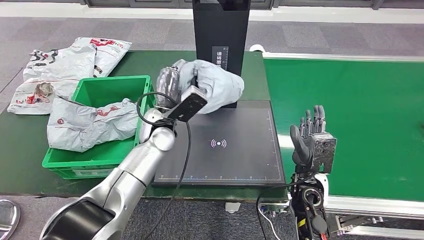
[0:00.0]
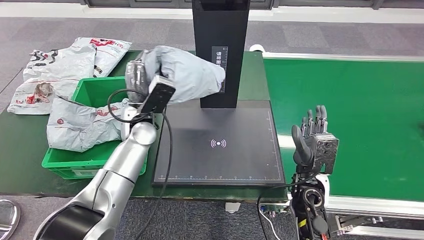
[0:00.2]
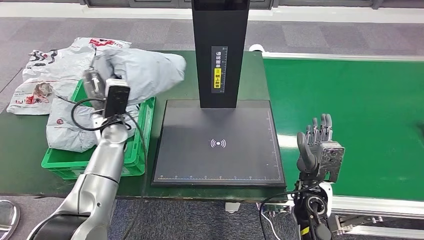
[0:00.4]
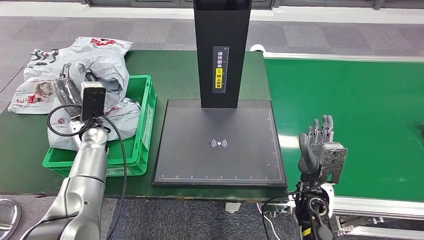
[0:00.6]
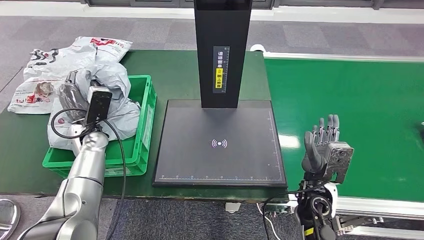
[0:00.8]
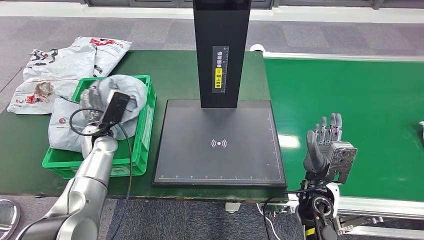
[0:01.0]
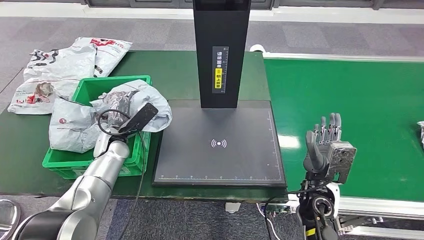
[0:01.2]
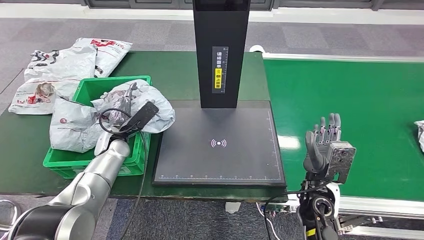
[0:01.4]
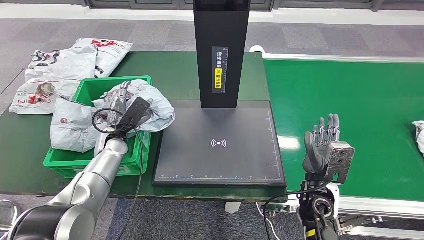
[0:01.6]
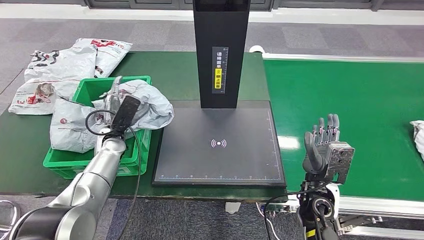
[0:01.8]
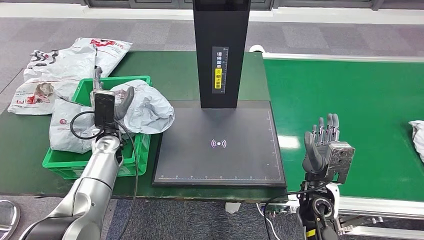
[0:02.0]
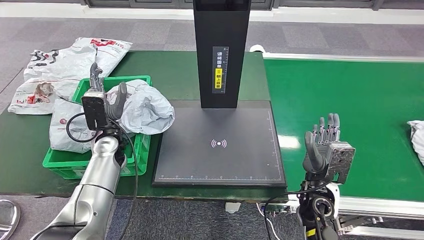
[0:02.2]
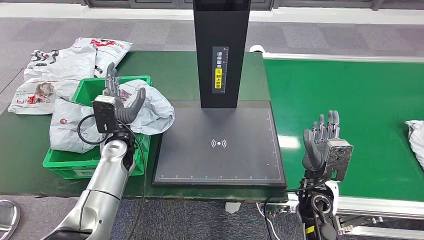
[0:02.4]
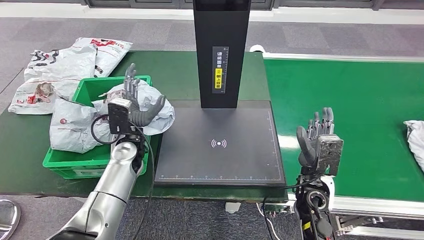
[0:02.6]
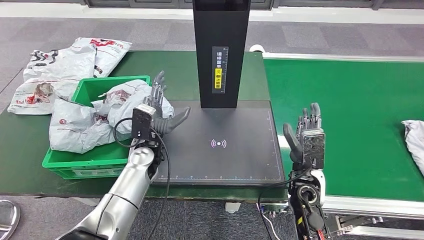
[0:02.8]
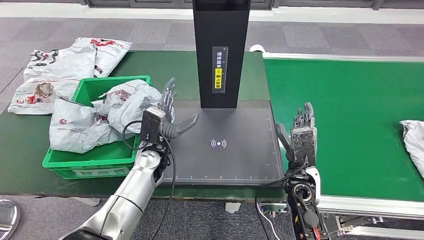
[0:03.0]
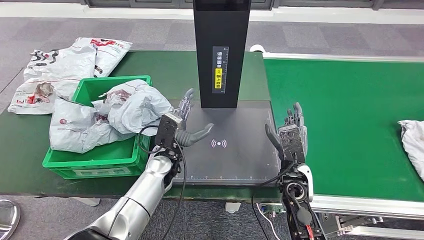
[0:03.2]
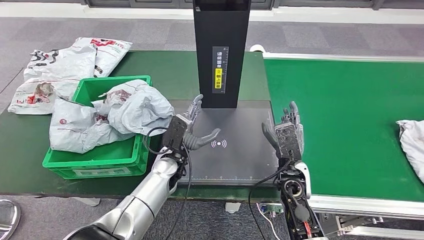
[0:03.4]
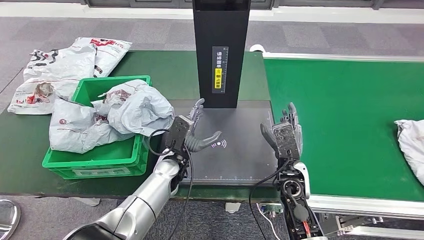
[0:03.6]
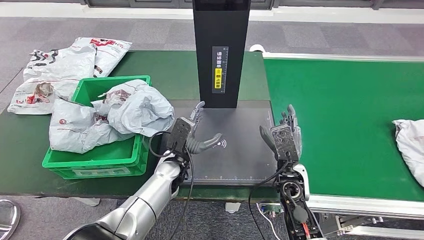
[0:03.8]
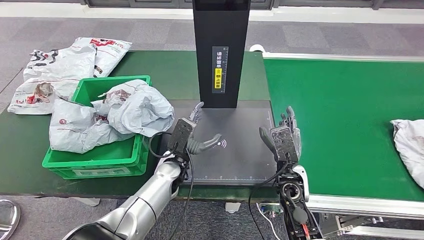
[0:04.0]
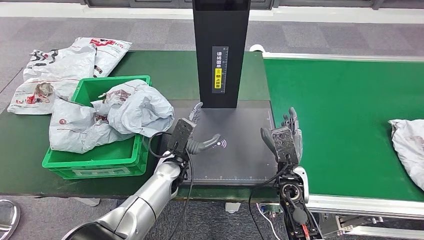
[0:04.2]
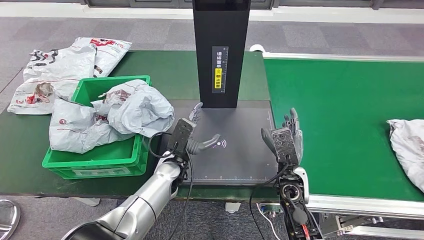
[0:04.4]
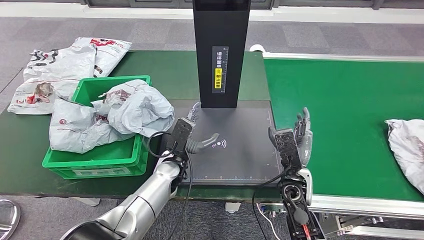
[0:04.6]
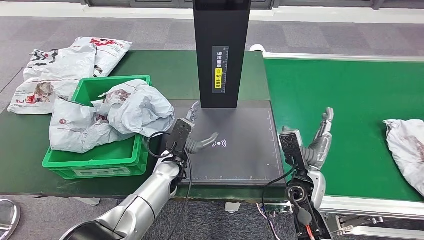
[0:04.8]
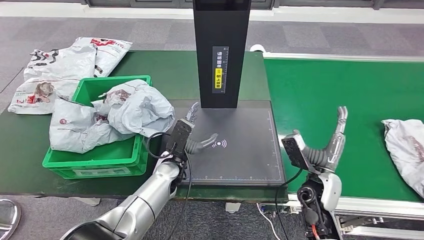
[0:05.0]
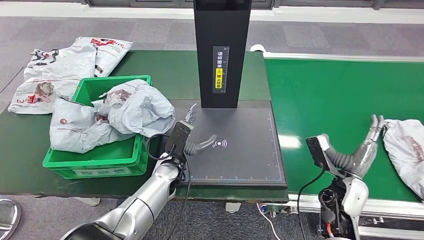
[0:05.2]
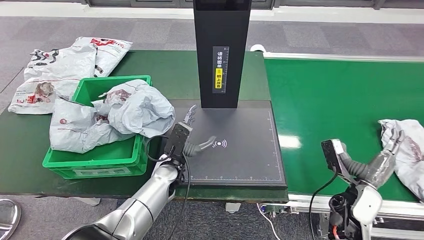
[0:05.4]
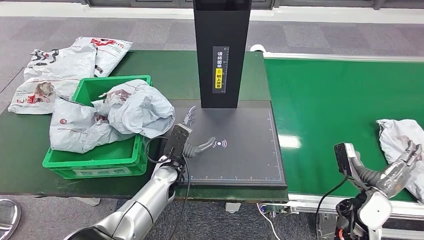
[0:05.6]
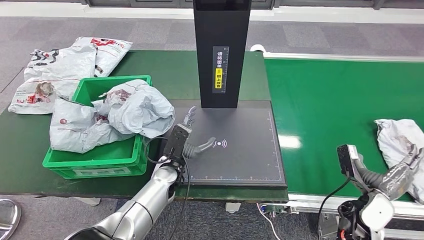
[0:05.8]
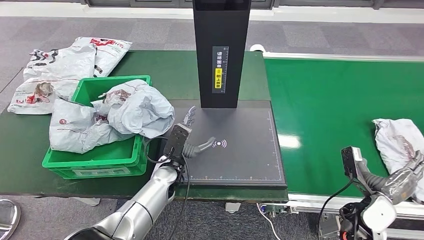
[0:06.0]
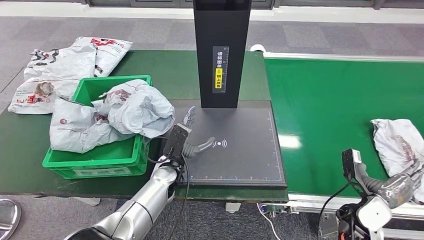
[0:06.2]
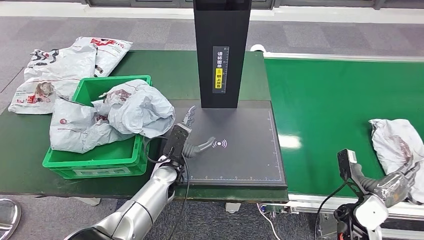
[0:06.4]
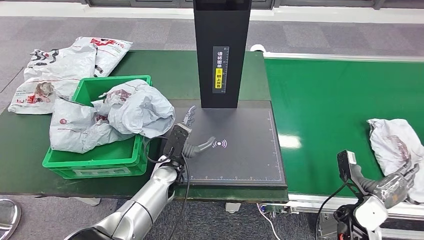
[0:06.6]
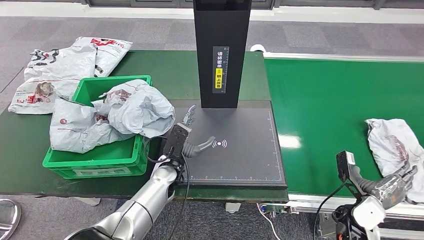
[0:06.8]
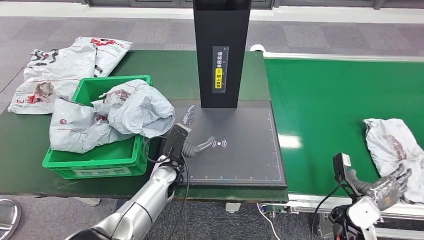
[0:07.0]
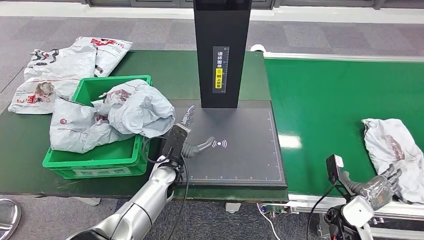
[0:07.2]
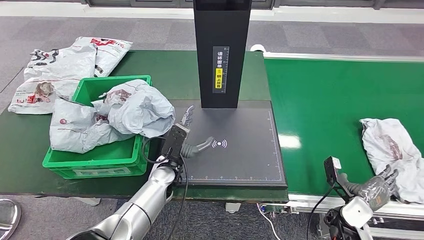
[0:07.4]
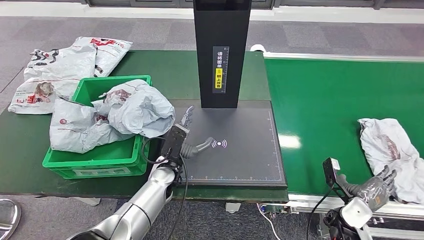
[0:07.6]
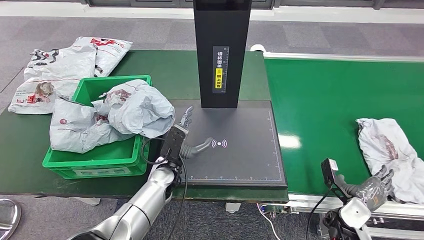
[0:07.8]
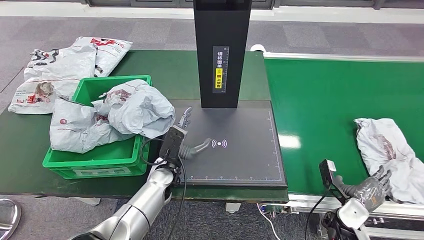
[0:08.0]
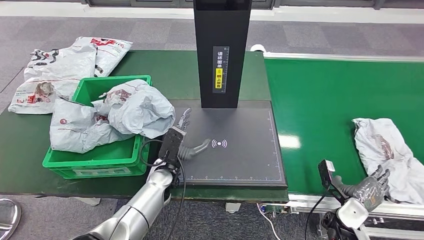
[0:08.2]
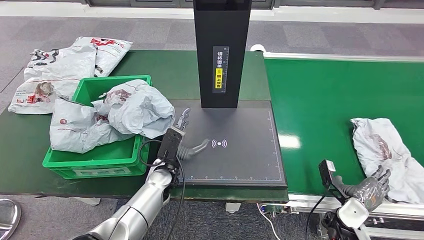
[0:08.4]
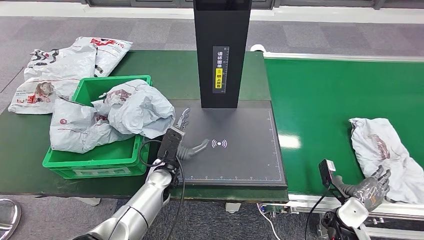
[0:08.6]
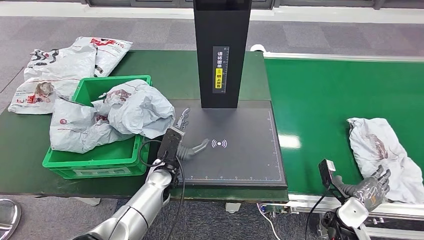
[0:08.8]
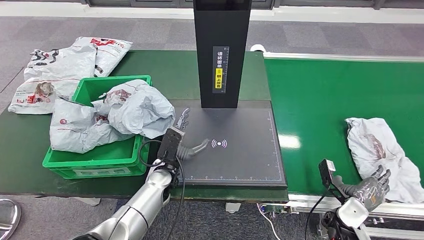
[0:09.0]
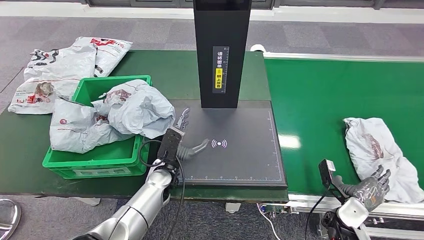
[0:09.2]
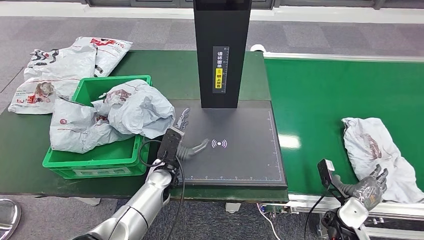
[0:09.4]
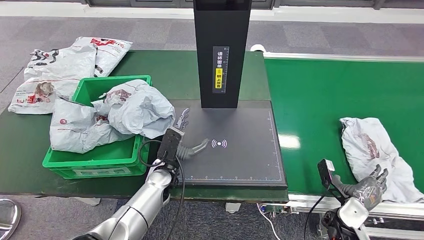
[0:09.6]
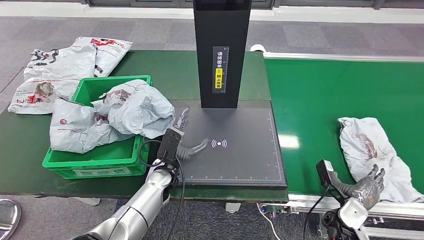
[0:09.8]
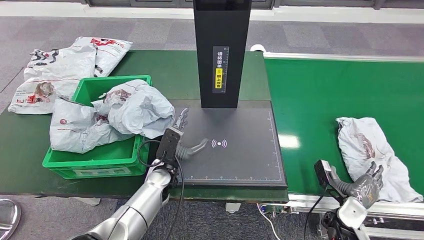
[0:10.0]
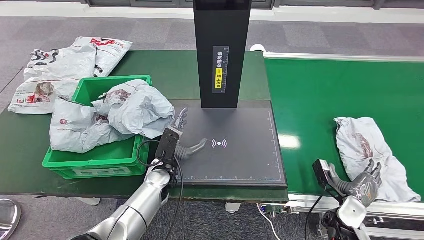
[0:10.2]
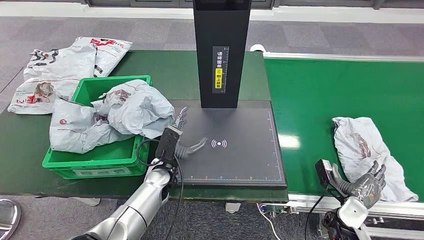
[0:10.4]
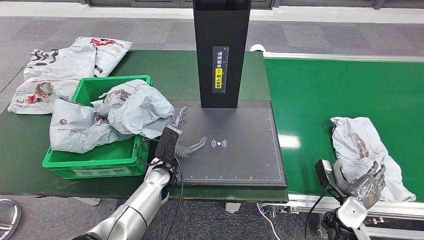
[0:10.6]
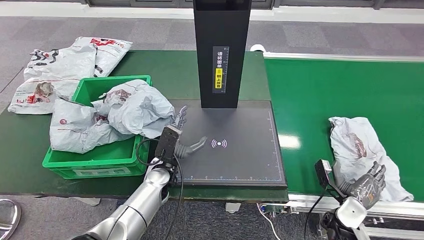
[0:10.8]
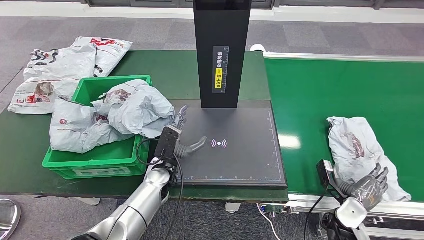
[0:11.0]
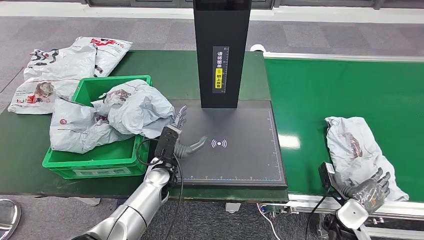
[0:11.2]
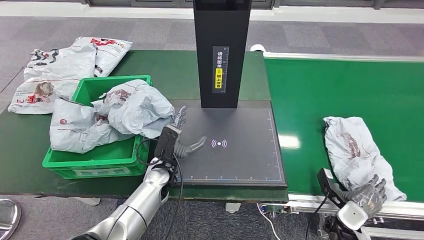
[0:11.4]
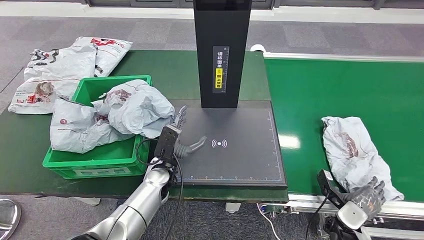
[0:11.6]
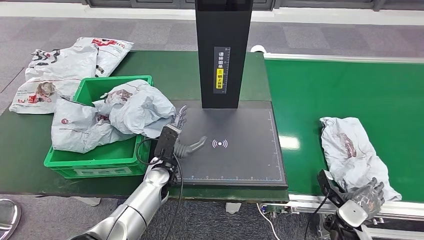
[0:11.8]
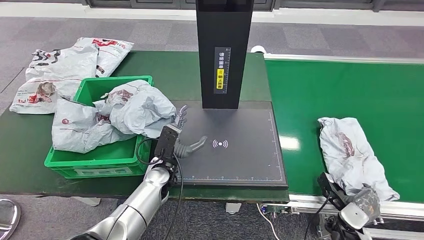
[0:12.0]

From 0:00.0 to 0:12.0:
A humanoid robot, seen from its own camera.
Step, from 0:00.2 to 0:03.0: Place the parcel into the delivery box.
From 0:03.0 to 0:04.4: The left hand ends up some 5 cm from where it was.
From 0:04.4 to 0:06.0: The right hand shifts some 20 cm to the right.
From 0:07.6 to 0:09.0: The two hands keep their place.
From 0:09.0 to 0:10.4: The hands stay close to where they were, moving slightly.

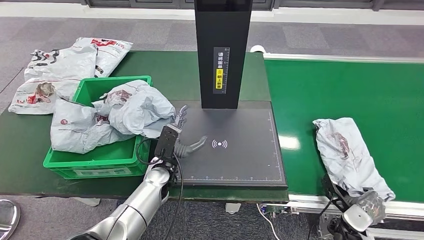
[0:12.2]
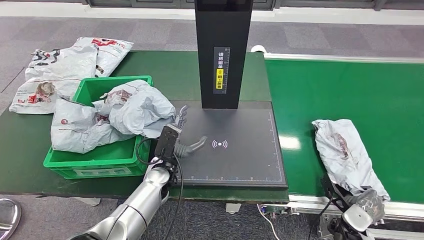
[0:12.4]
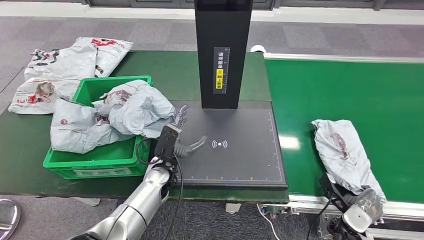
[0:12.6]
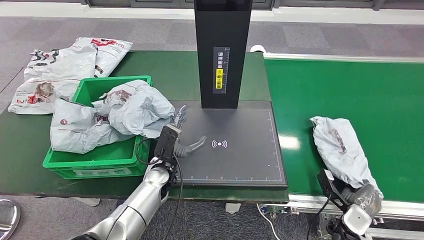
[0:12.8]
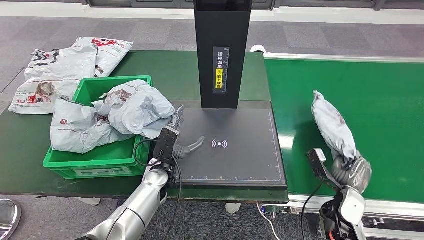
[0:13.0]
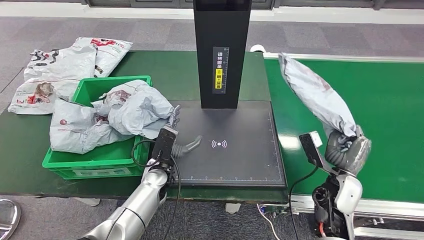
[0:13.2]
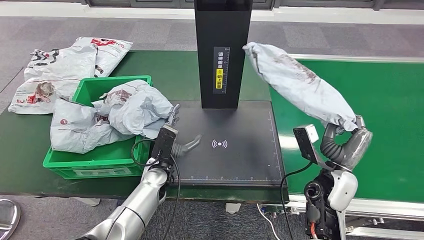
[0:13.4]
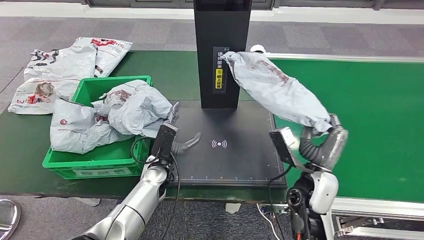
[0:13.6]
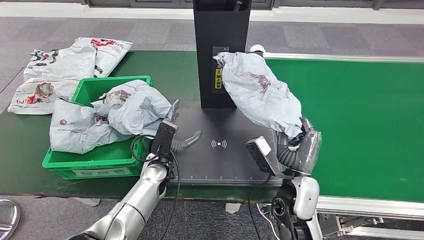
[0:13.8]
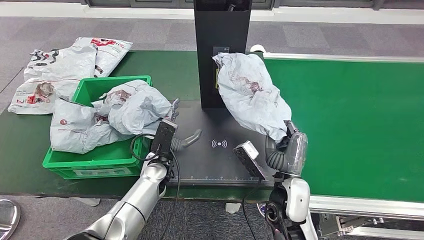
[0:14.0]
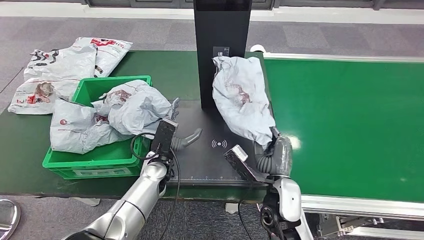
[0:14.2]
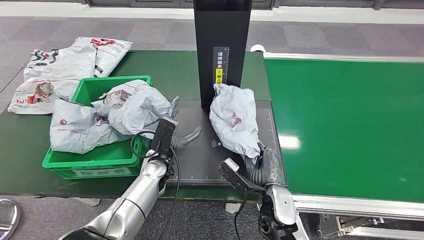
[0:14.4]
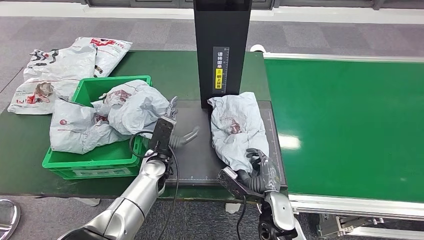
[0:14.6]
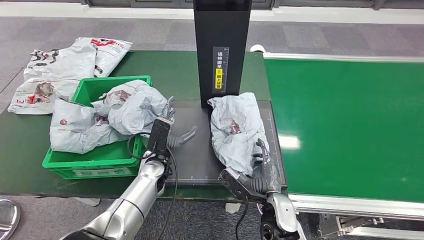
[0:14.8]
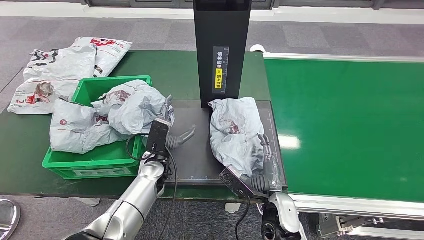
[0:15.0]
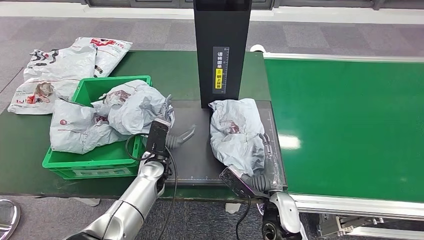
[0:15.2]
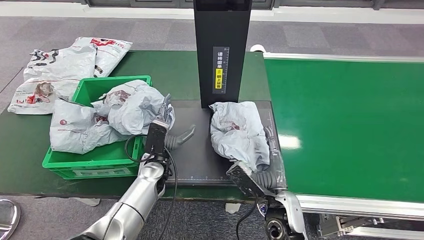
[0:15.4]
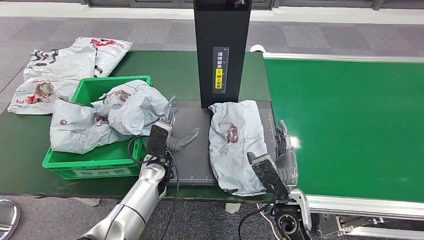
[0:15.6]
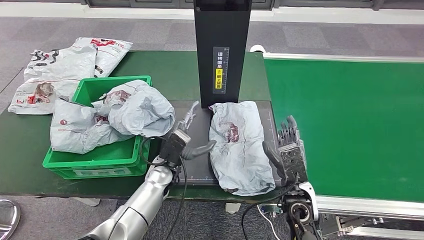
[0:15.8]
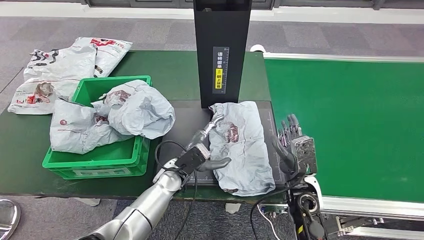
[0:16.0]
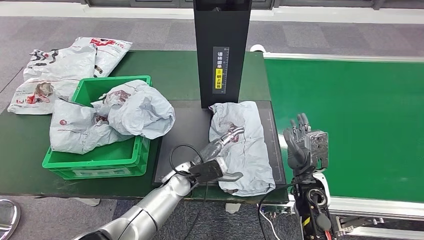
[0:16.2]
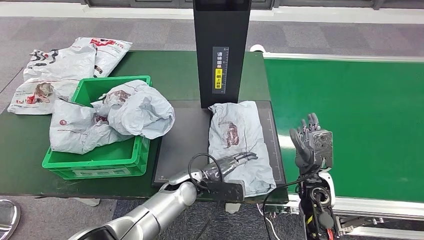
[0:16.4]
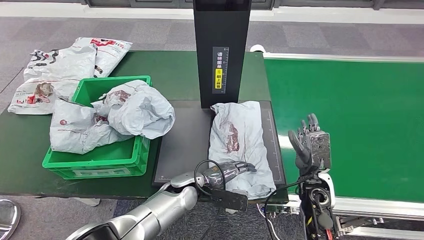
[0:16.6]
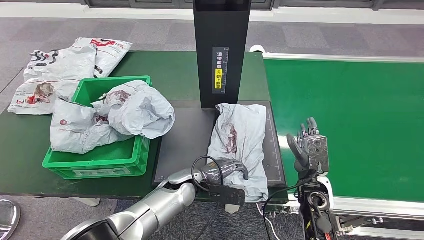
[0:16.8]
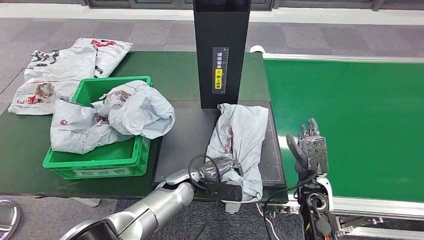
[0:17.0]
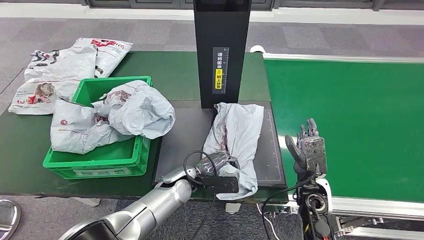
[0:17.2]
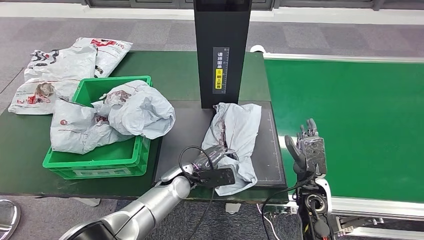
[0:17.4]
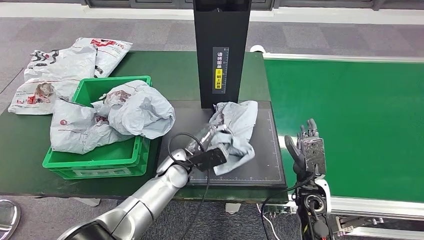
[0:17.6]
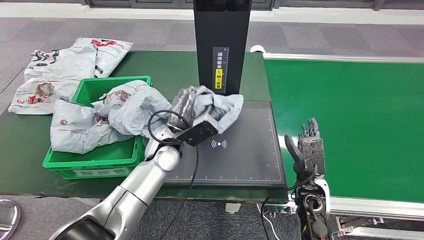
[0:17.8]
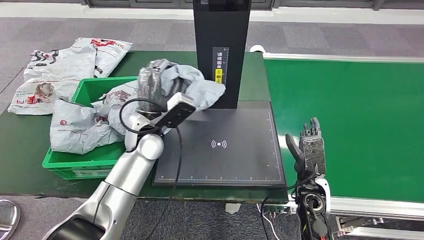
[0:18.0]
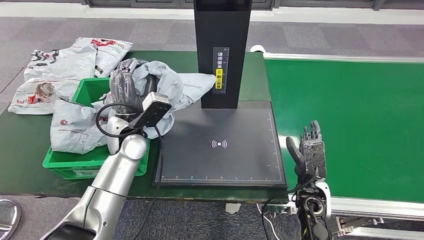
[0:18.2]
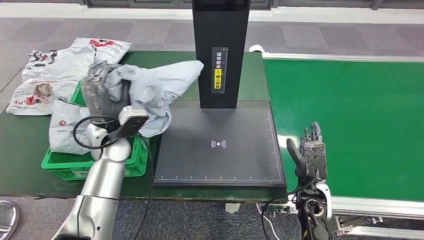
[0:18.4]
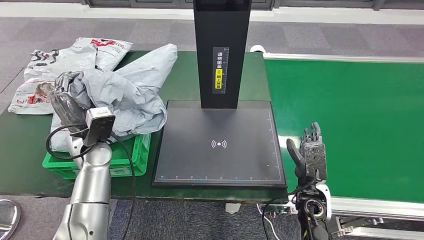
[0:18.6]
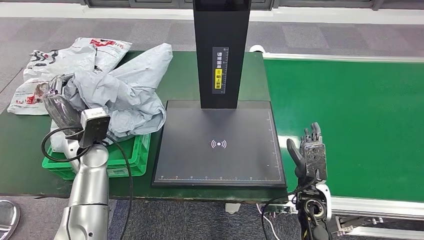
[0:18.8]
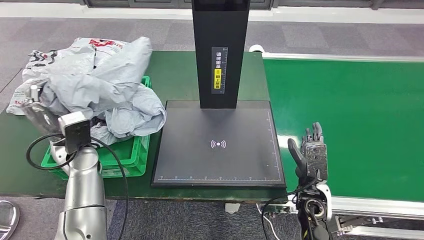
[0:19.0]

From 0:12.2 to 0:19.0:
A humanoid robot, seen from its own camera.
Step, from 0:13.6 to 0:16.0: Place the parcel onto the inbound machine.
Step, from 0:16.4 to 0:17.8: Pick up the parcel from the inbound machine.
From 0:13.6 to 0:15.0: The right hand shifts roughly 10 cm to the left, backward and downward.
From 0:15.0 to 0:16.2: The right hand moves to the right and forward, about 10 cm. The left hand shifts some 5 cm to the right.
